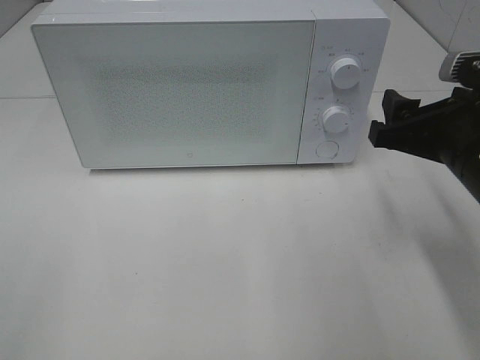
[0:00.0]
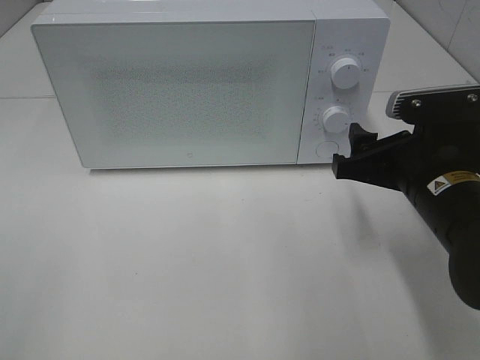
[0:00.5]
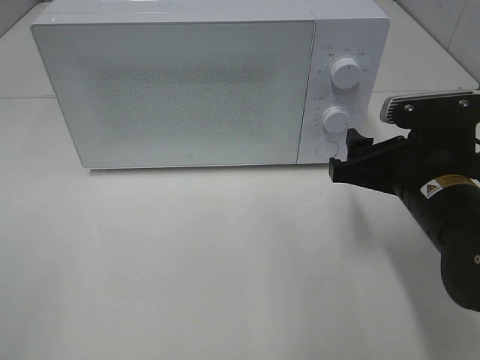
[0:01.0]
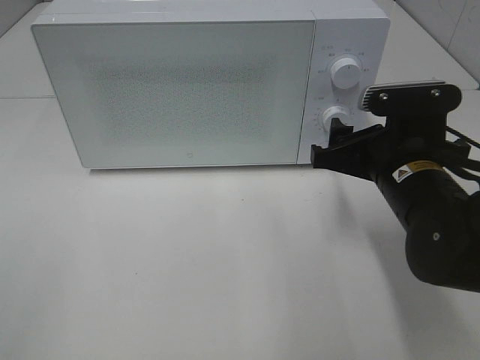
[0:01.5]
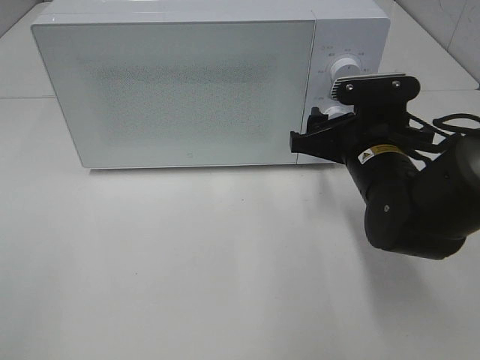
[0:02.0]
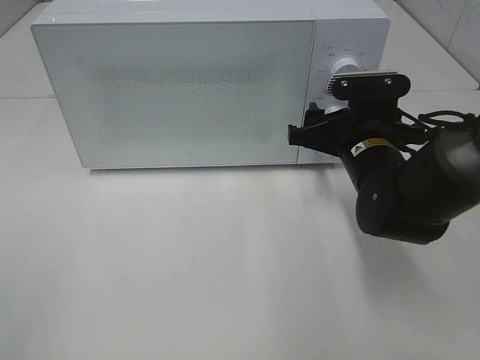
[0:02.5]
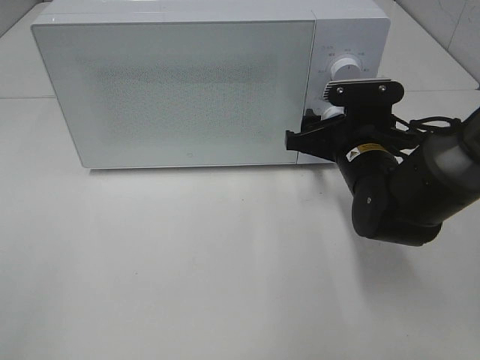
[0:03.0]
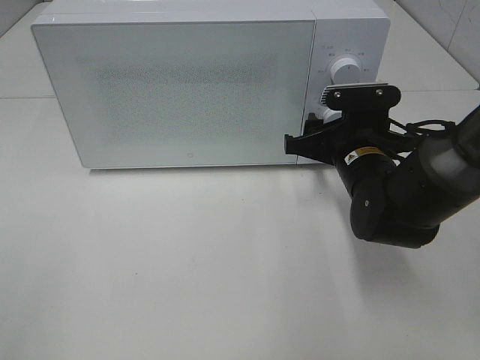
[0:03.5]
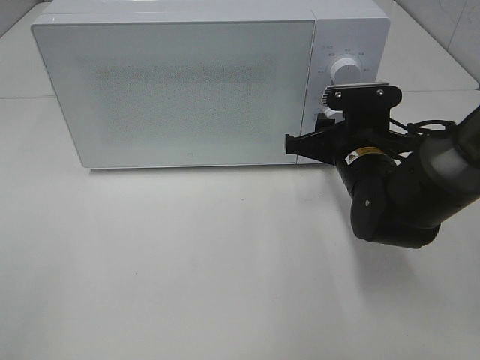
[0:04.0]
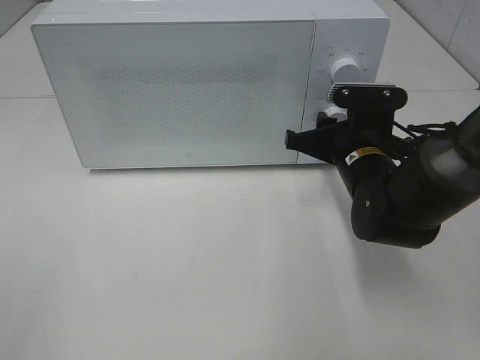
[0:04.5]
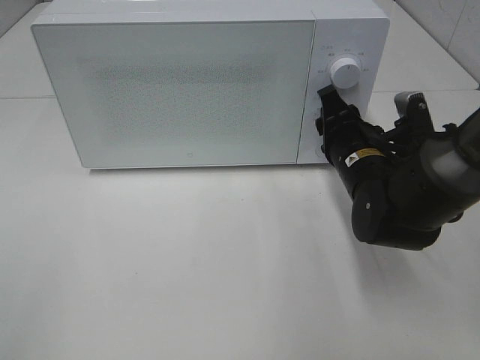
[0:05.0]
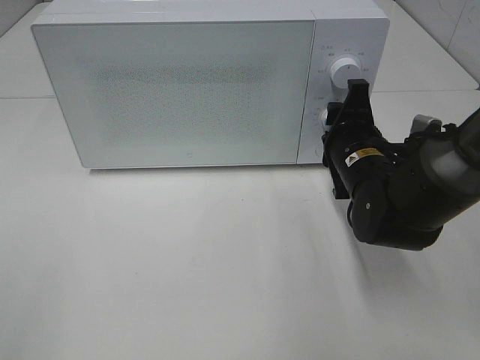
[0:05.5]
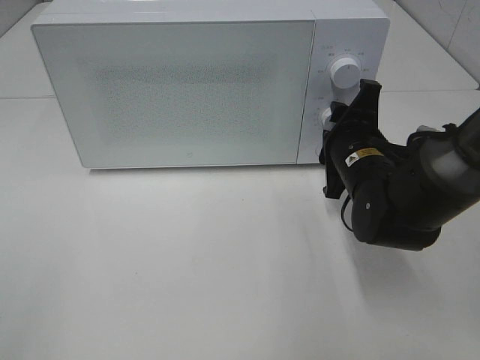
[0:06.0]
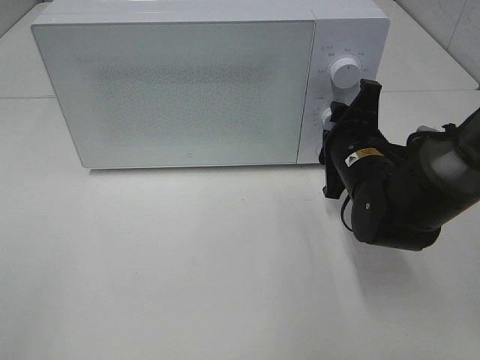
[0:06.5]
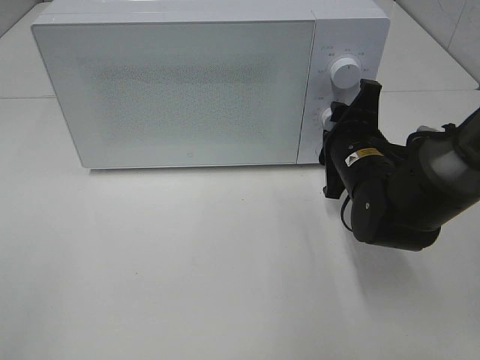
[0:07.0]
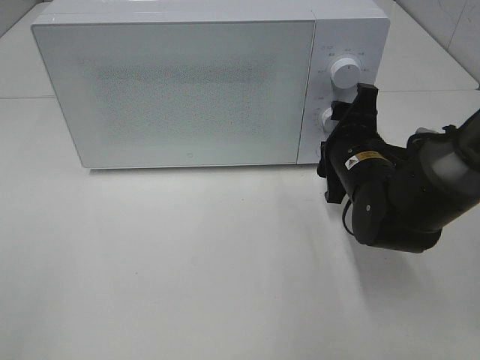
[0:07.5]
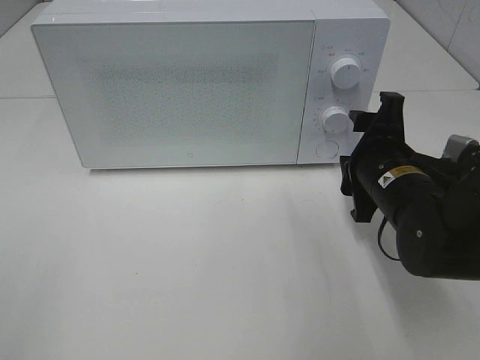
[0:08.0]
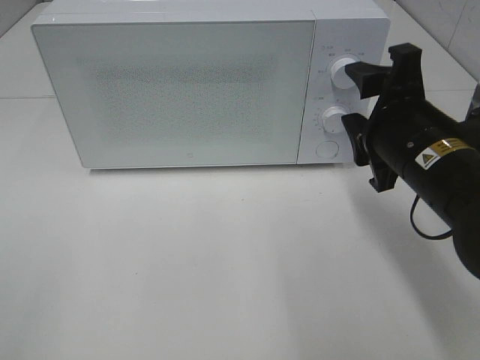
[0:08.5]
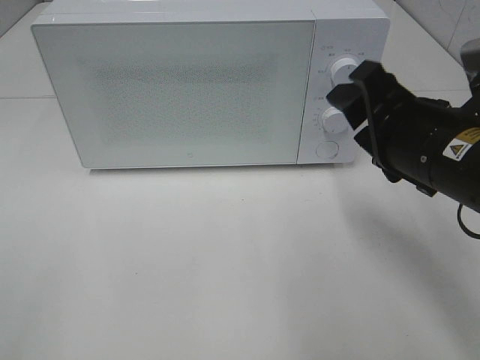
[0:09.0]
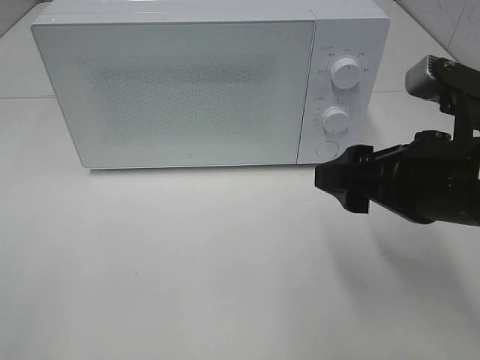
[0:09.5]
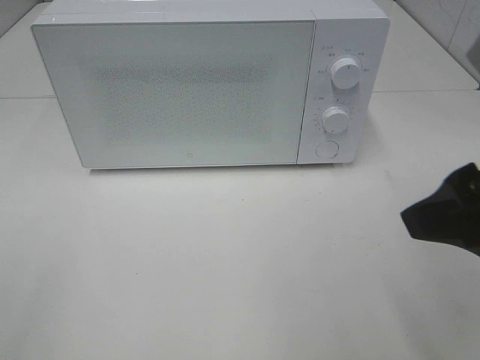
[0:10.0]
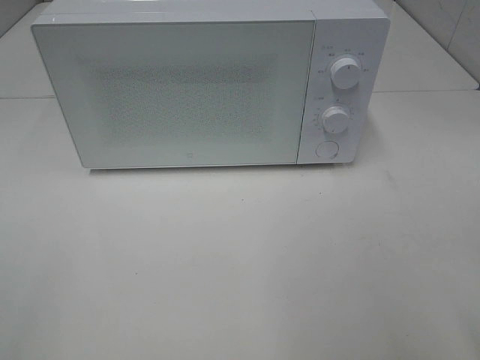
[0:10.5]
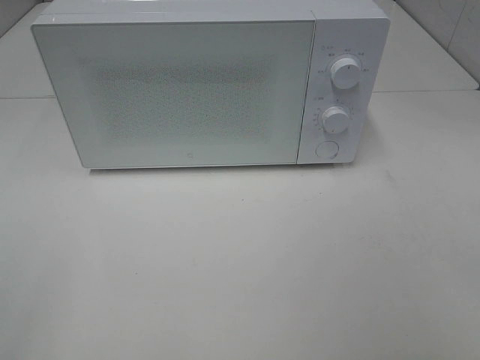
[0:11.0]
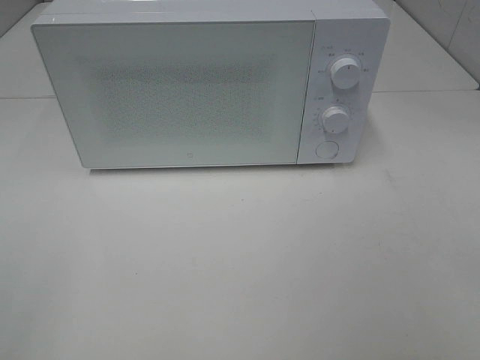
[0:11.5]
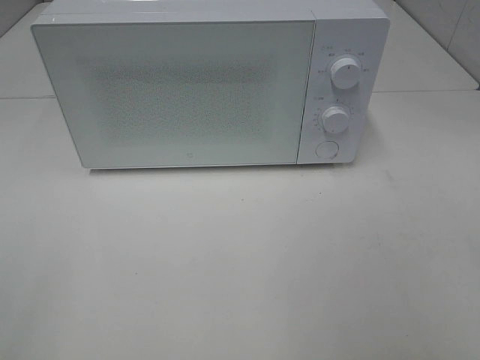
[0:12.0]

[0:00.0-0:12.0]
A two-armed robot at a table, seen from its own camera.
Task of the whole recording: Heat the burger.
Step, 0:00.0 to 0:07.5: Right hand: twist timer button.
0:00.0 to 0:02.0: The right gripper is displaced to the left, forward and downward by roughly 10 cm.
0:02.0 to 0:04.0: The right gripper closes.
0:06.0 to 0:08.0: The grippers move only a little.
0:08.0 to 0:10.0: The right gripper shifts some 20 cm upward and backward.
0:10.0 to 0:12.0: The right gripper travels backward and to the right by about 15 cm.

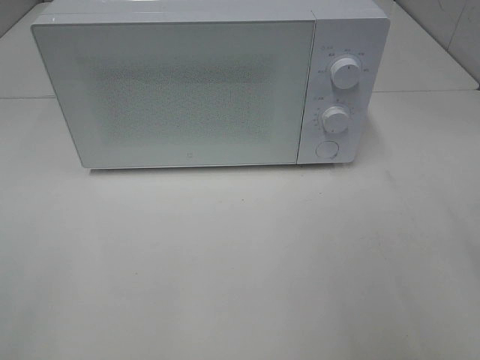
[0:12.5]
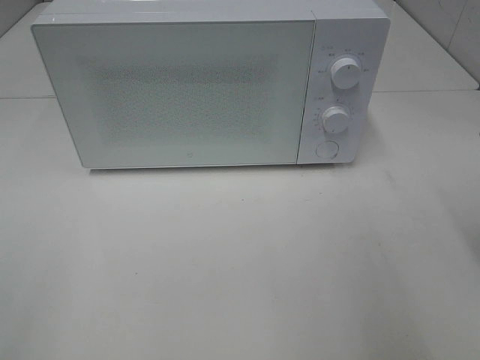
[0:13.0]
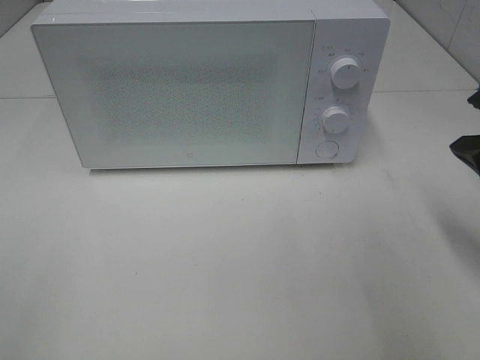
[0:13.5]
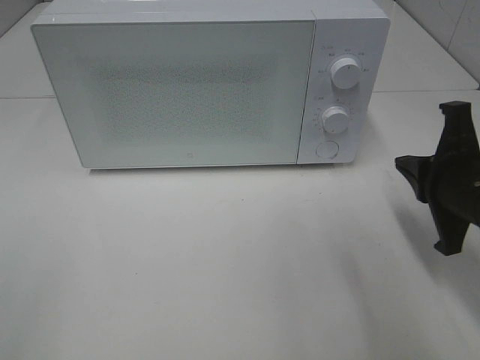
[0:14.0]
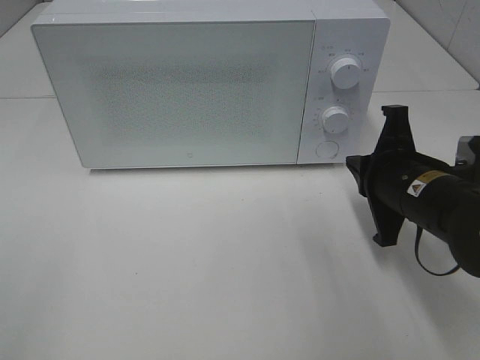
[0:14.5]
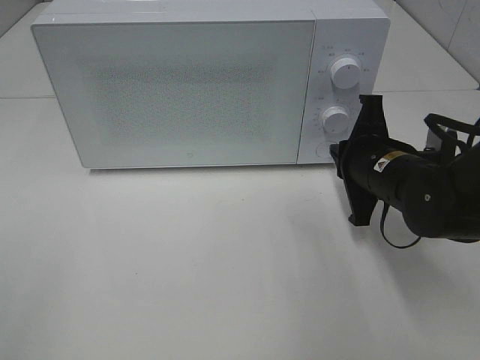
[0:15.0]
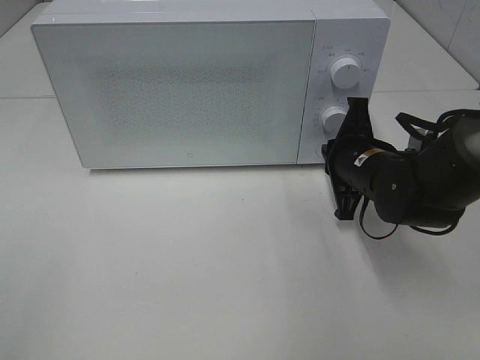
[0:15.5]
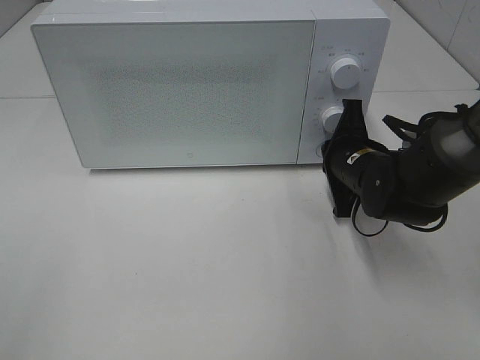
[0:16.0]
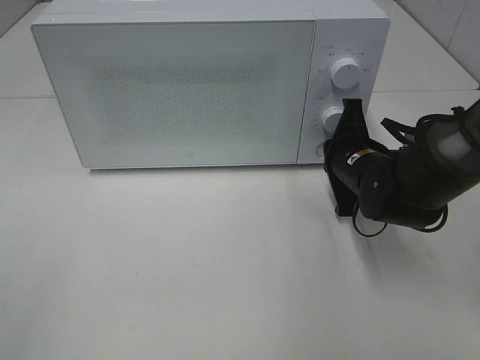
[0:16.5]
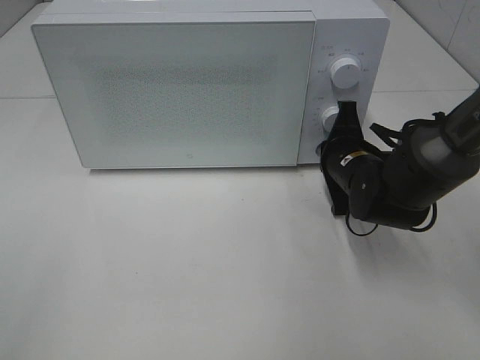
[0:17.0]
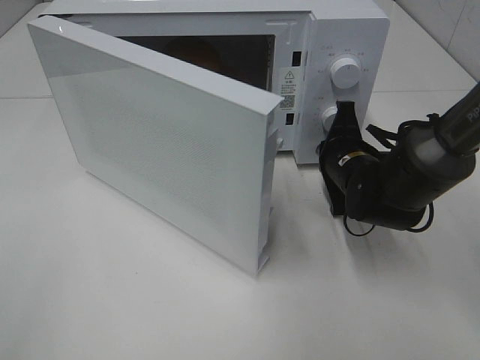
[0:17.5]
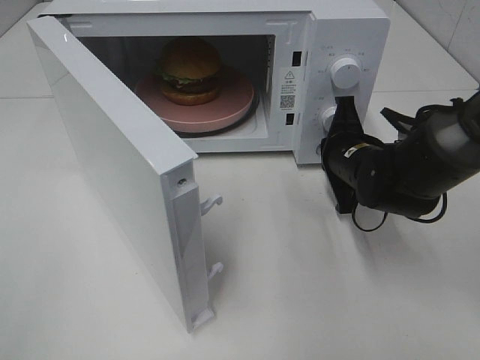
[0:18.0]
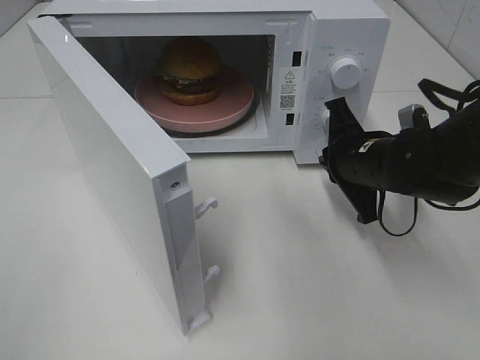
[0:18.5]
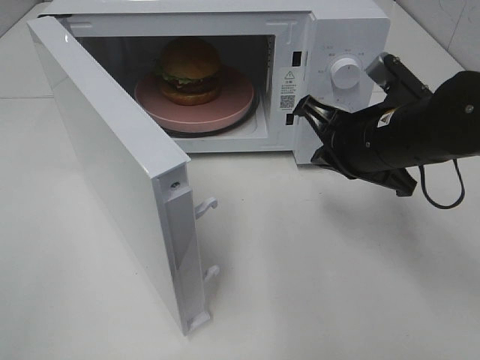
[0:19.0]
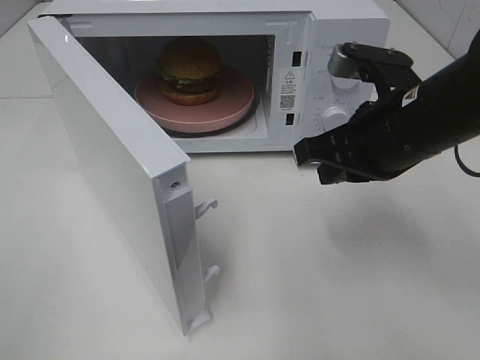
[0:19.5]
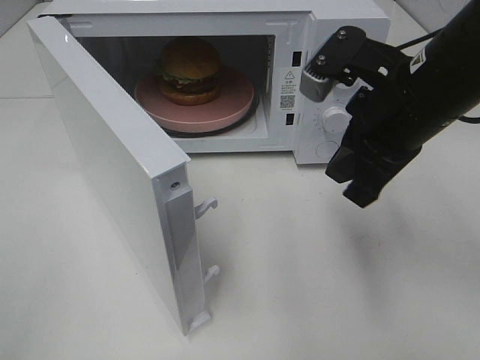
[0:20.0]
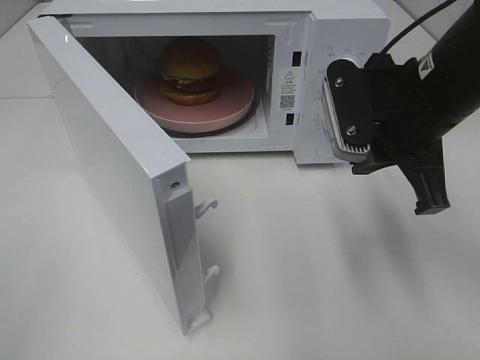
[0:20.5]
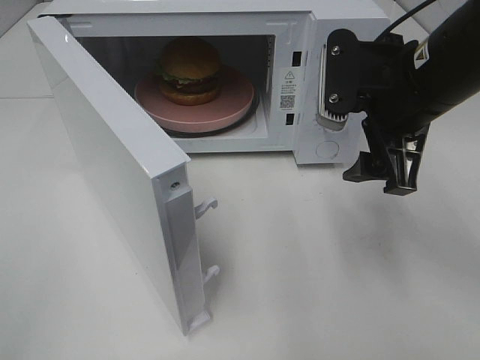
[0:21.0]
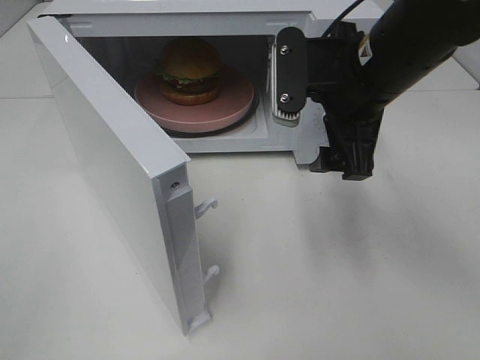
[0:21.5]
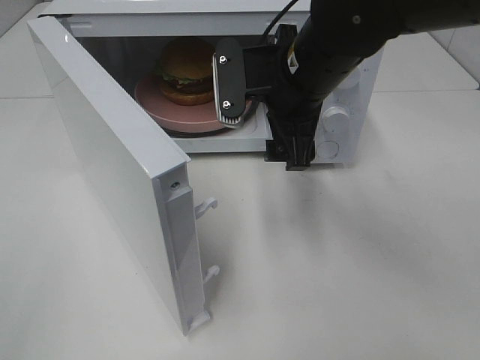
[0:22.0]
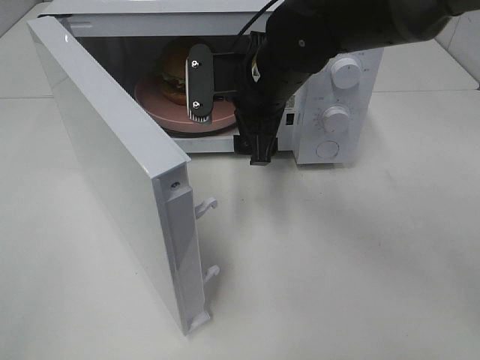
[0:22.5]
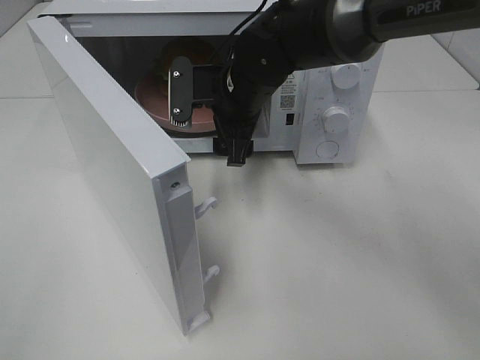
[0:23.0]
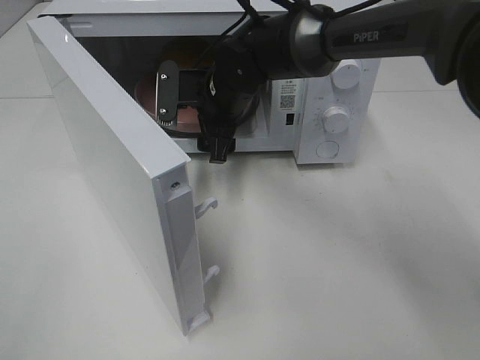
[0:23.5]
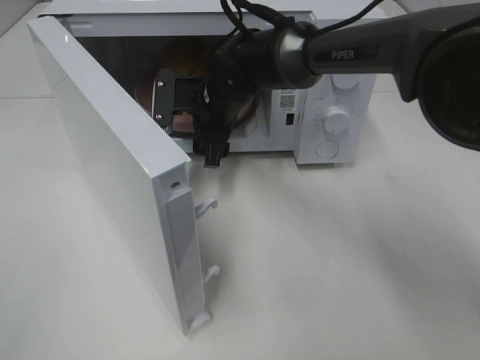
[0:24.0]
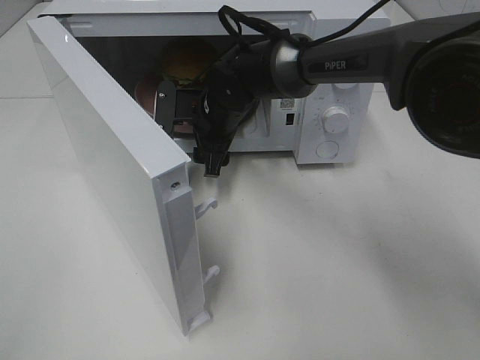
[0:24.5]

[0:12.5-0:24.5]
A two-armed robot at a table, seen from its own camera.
Task of the whole recording: Heat the burger.
Step, 0:12.5 to 0:18.0: Right hand: press the switch.
0:12.5 to 0:14.5: The right gripper shifts roughly 25 cm downward, forward and to the left, and closes its fingers.
0:14.5 to 0:16.5: The right gripper goes approximately 10 cm forward.
0:18.5 to 0:20.5: The right gripper is displaced upward and backward by about 15 cm.
0:20.5 to 0:22.5: The right gripper goes roughly 15 cm to the left and forward, and opens up.
0:22.5 to 0:24.5: The right gripper heads downward, forward and to the left, covering some 10 cm.

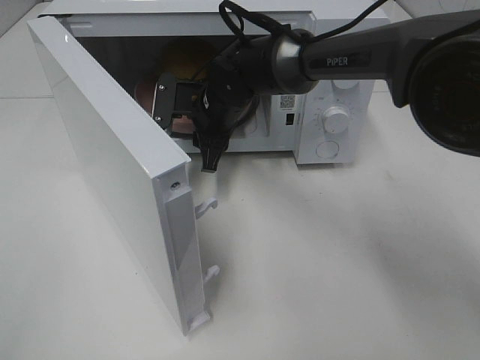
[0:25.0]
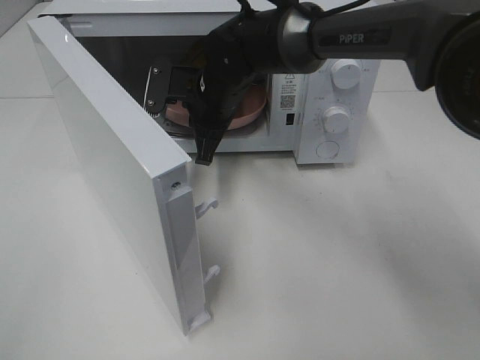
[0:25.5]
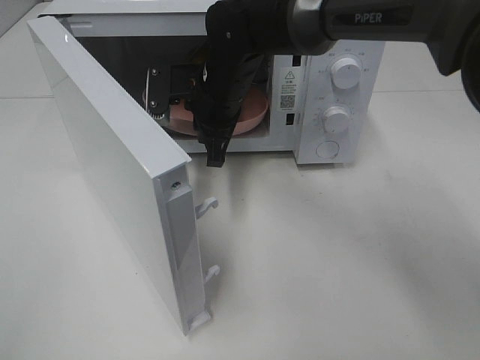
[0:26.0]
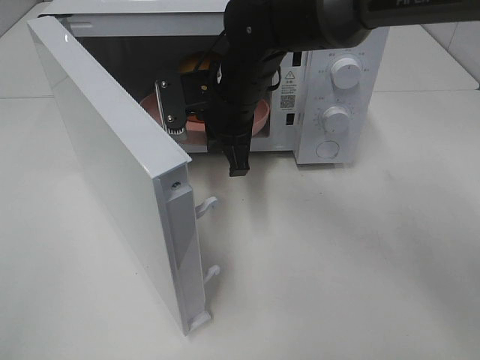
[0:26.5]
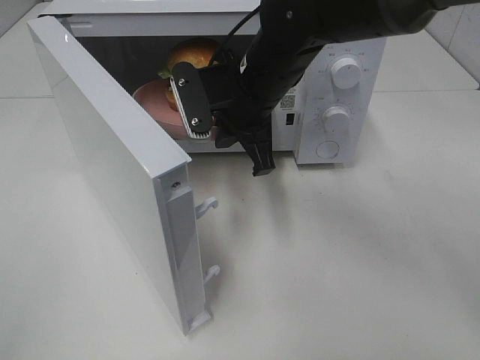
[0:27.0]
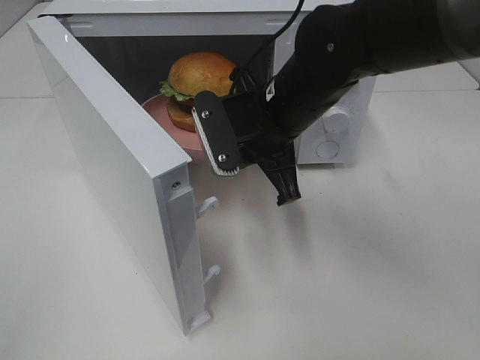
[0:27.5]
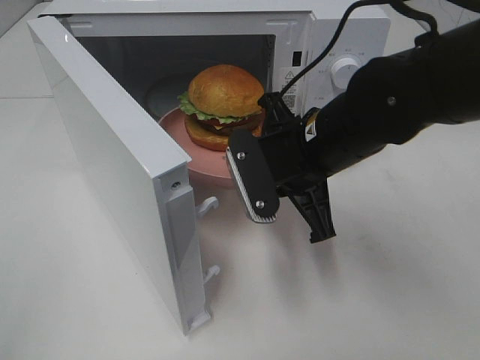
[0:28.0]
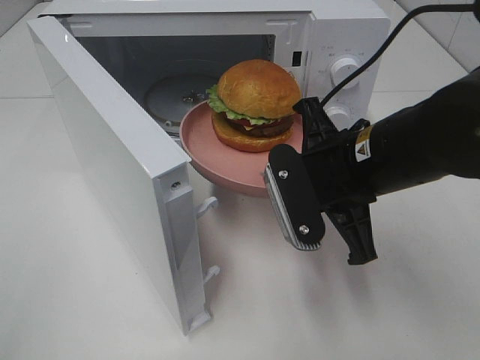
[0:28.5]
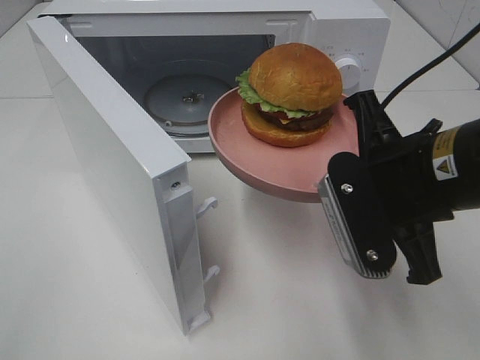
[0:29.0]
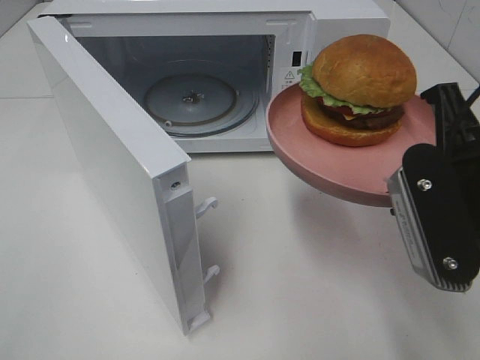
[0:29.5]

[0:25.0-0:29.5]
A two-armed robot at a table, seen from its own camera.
Task of the whole recording: Heat the burger.
0:25.0 to 0:27.0: The right gripper travels upward and backward by roughly 10 cm, and closes.
0:27.0 to 0:29.5: The right gripper moves backward and to the right, approximately 25 cm.
